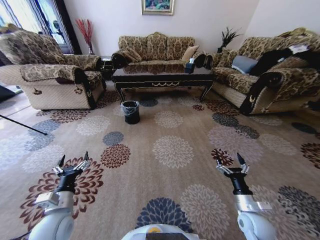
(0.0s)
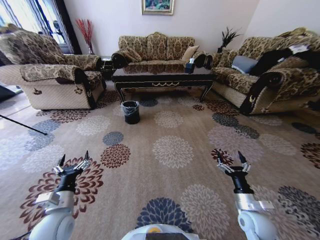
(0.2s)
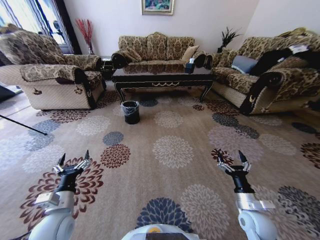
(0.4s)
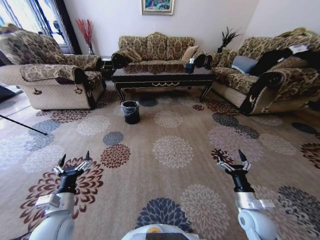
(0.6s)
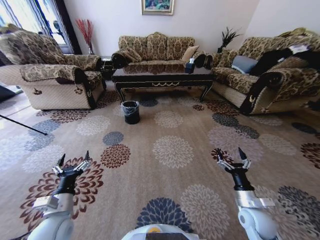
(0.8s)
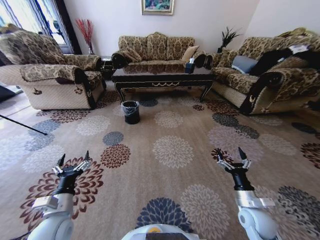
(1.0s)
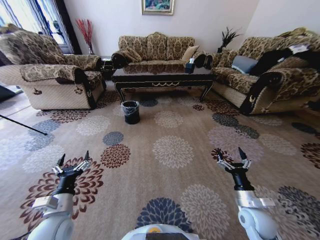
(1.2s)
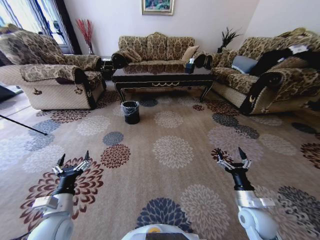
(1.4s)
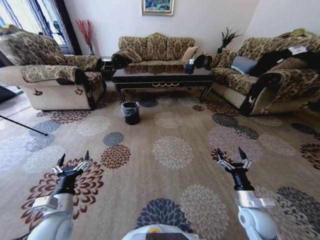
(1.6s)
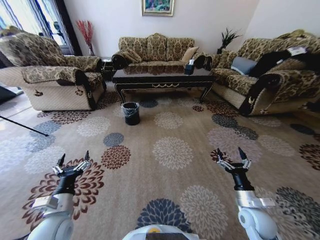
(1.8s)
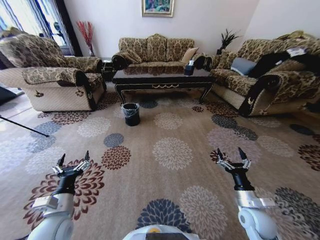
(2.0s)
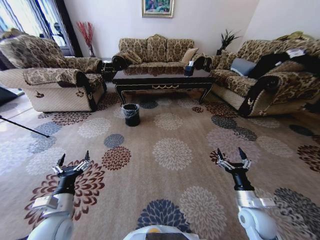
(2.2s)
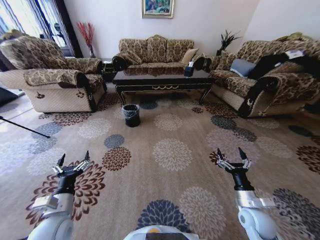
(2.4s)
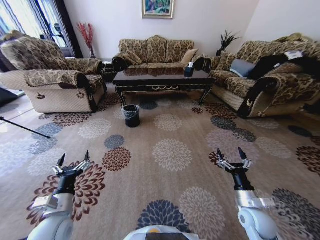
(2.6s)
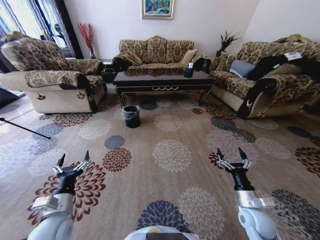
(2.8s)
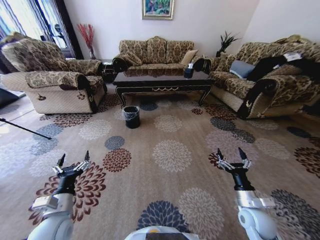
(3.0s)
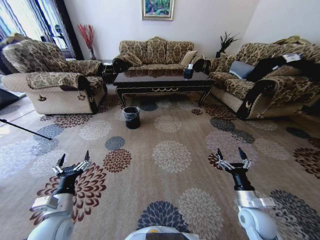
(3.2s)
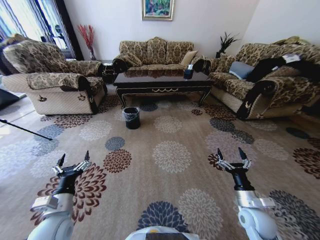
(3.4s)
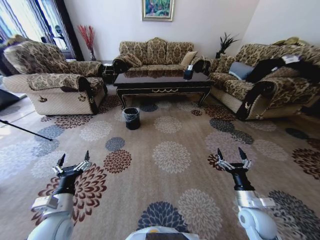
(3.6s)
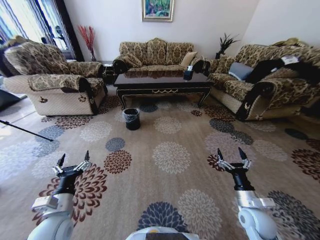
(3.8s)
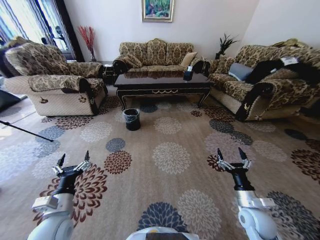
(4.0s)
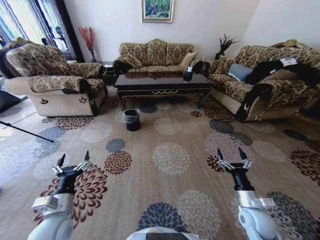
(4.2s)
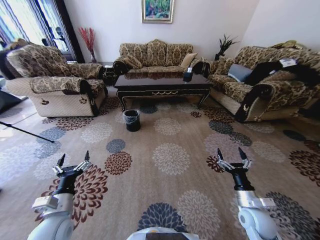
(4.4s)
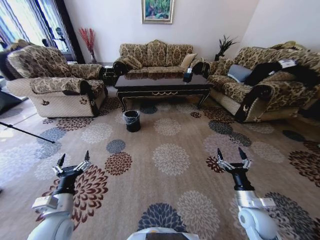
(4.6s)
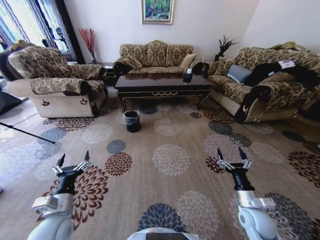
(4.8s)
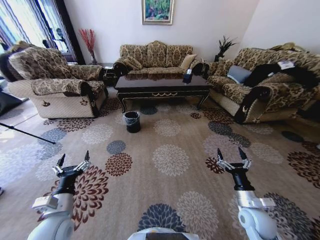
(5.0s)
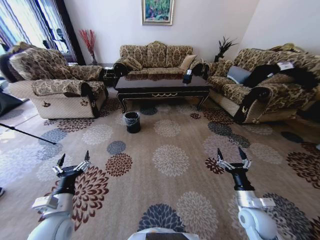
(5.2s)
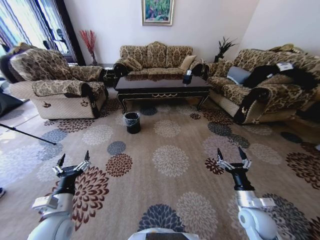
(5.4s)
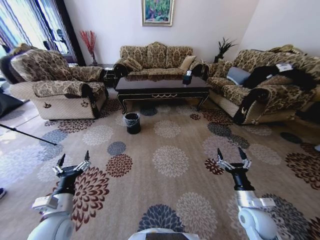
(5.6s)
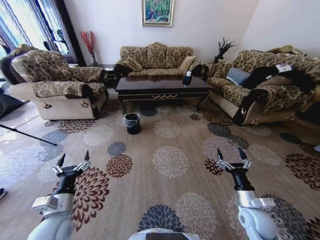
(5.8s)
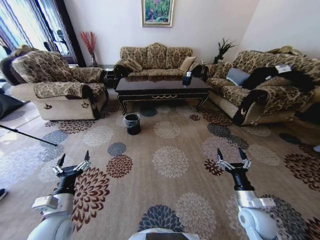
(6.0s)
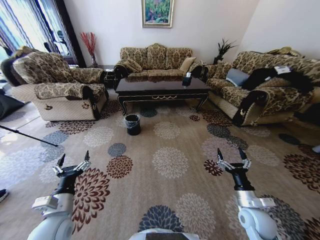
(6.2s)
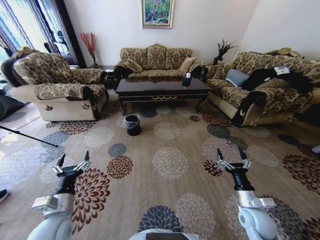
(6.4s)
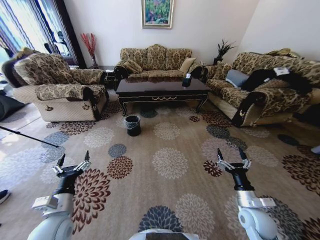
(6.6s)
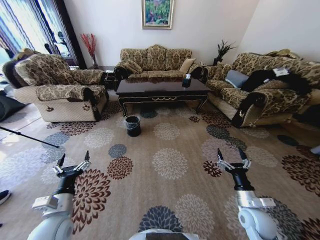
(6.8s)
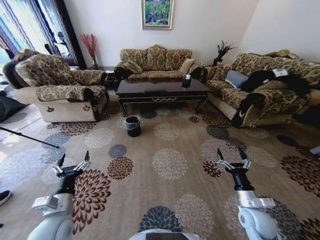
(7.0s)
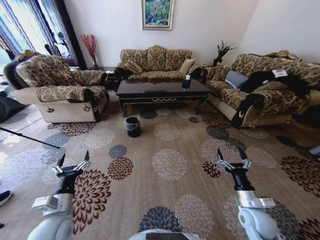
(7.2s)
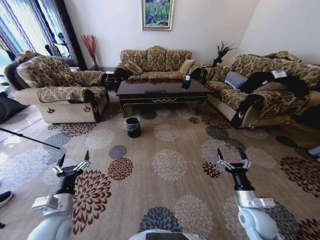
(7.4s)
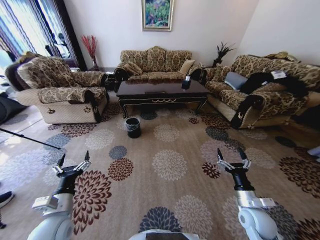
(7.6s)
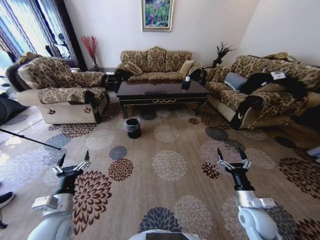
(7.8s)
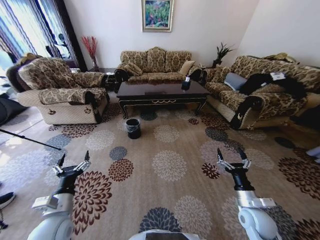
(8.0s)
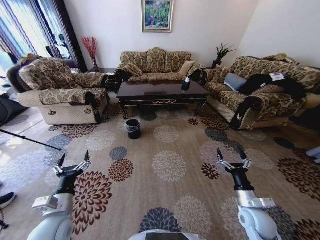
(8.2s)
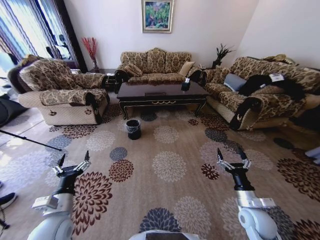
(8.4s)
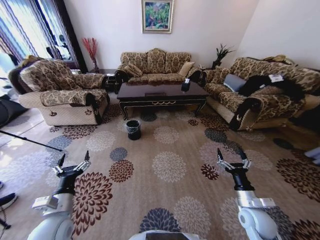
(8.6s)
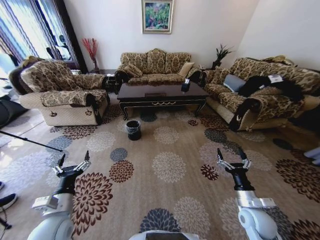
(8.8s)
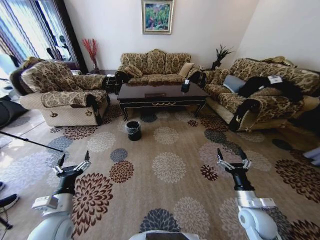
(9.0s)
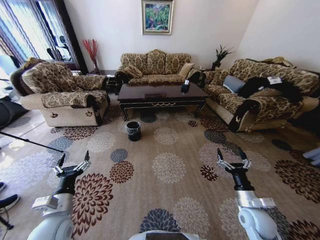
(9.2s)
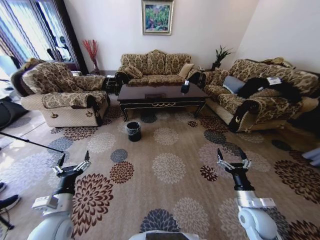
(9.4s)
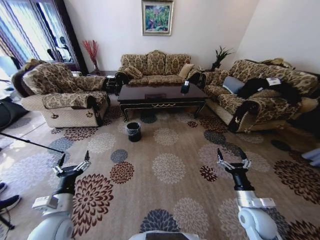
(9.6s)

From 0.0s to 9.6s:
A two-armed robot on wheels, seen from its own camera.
Task of the whole recording: Move to the front of the table and pick up the trash from the floor, then place it into the trash bin.
From 0.0s to 1.6s: The grippers stay close to where they were, moving slightly.

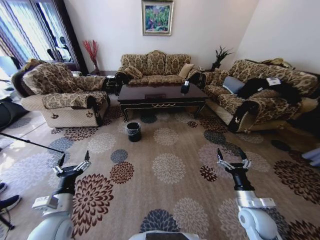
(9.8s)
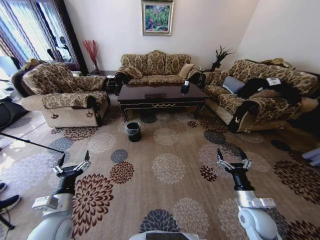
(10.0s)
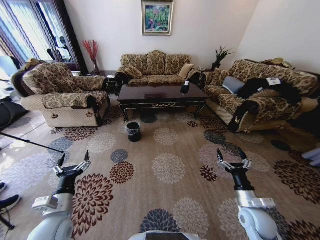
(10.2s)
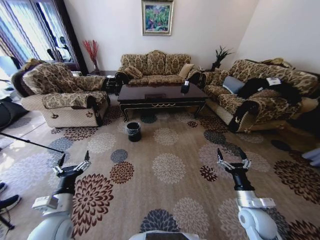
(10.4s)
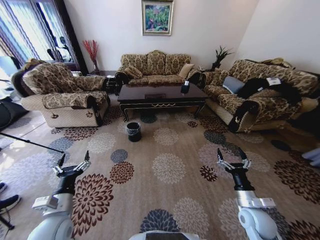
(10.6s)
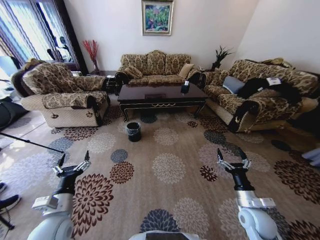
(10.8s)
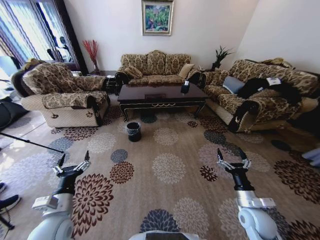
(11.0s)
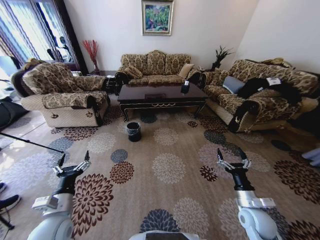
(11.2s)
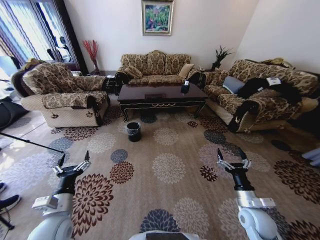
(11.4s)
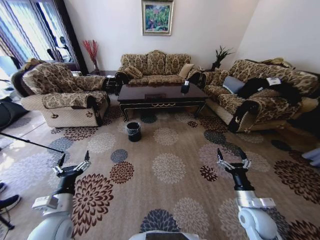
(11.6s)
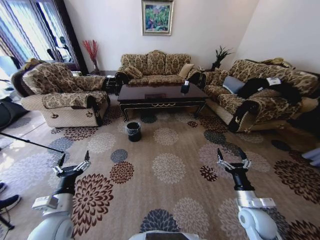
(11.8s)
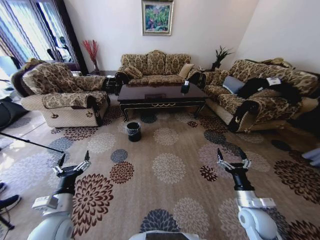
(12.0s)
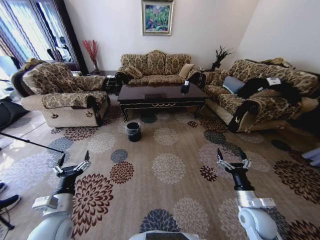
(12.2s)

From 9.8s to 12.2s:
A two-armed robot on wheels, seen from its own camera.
Task of the whole recording: Move to the front of the table and pick up the trash from the floor, then place it into the trash bin.
From 9.8s to 12.2s: Neither gripper changes place.
